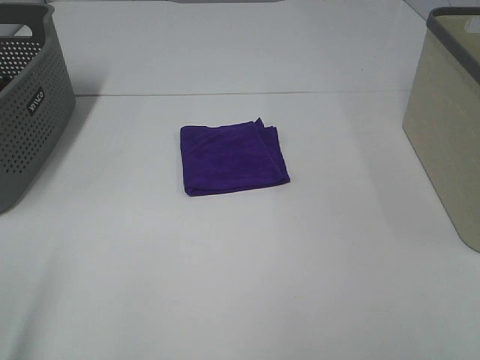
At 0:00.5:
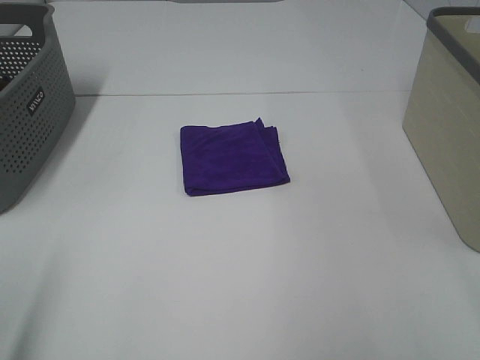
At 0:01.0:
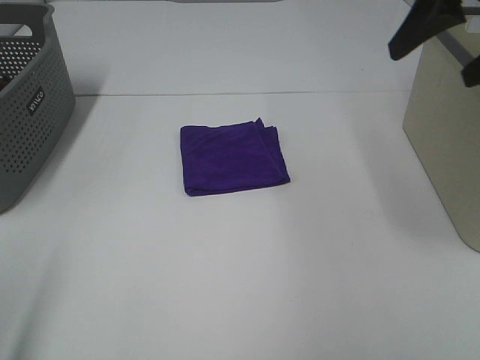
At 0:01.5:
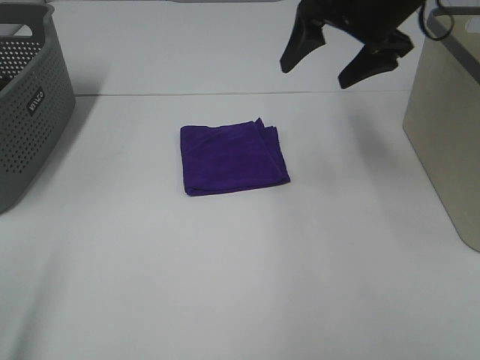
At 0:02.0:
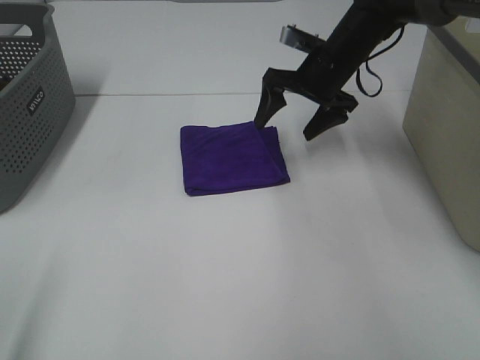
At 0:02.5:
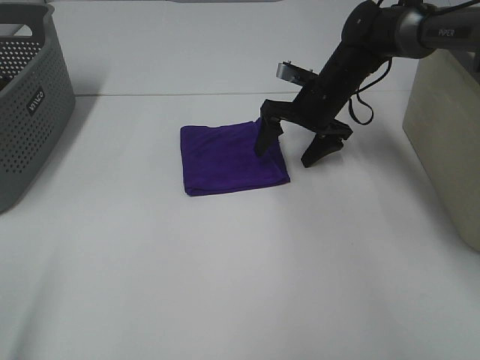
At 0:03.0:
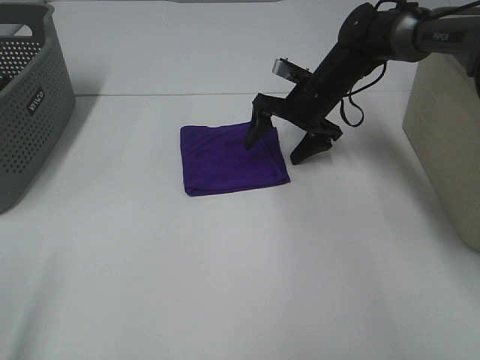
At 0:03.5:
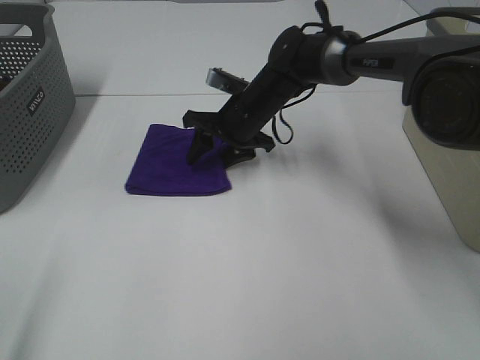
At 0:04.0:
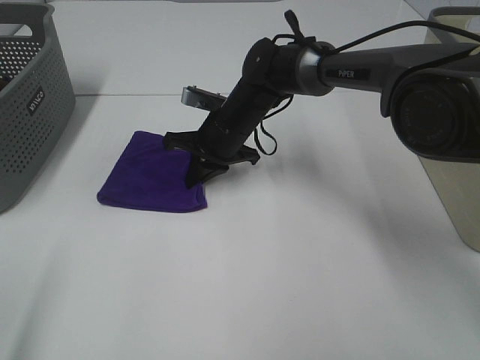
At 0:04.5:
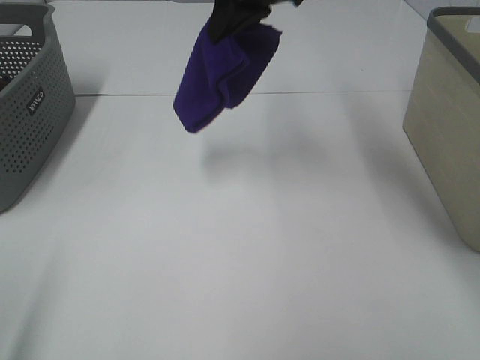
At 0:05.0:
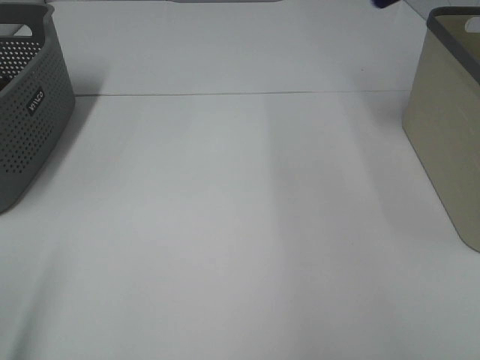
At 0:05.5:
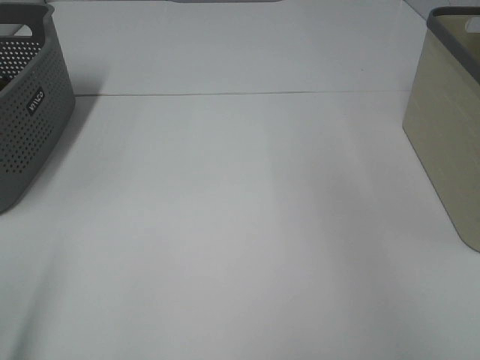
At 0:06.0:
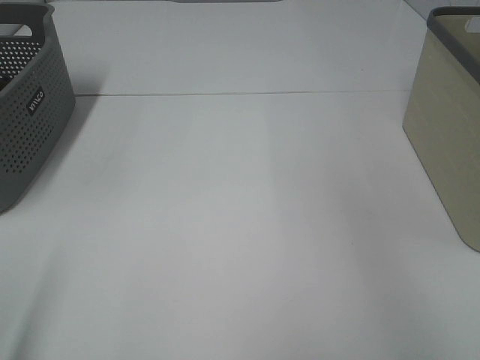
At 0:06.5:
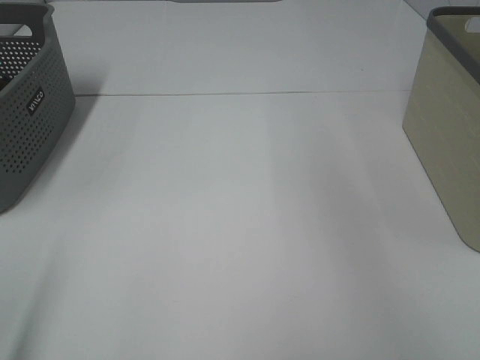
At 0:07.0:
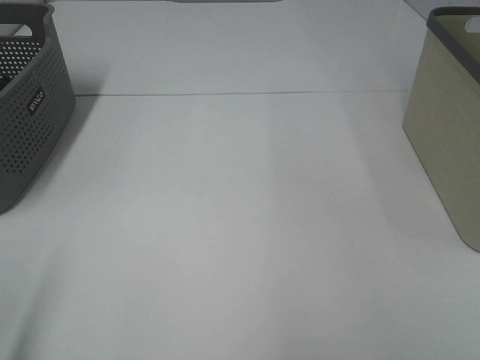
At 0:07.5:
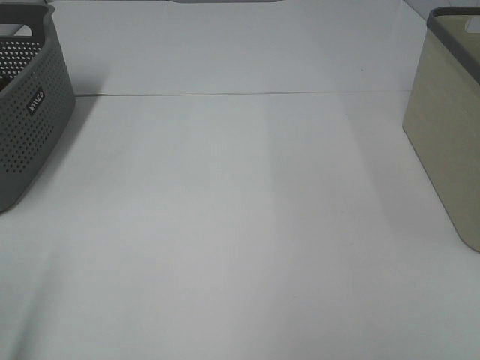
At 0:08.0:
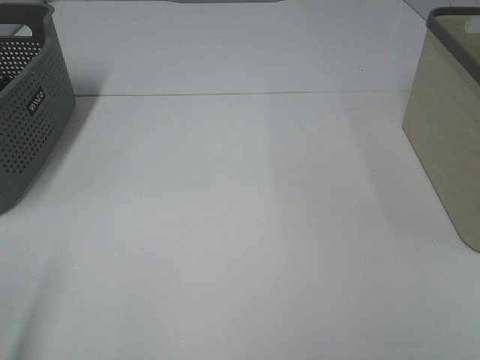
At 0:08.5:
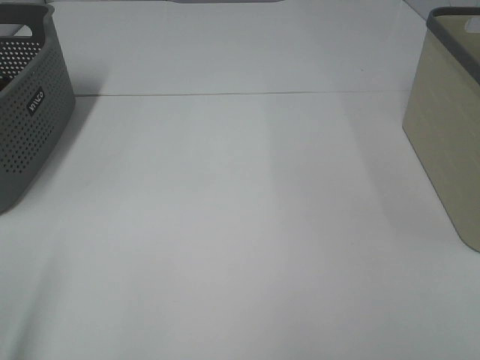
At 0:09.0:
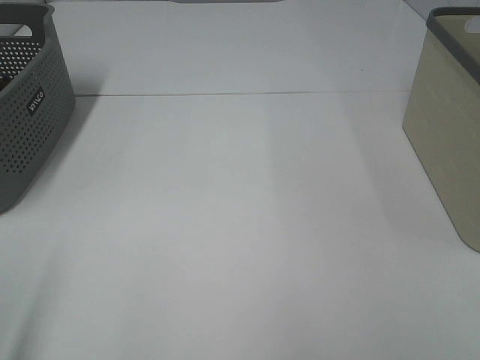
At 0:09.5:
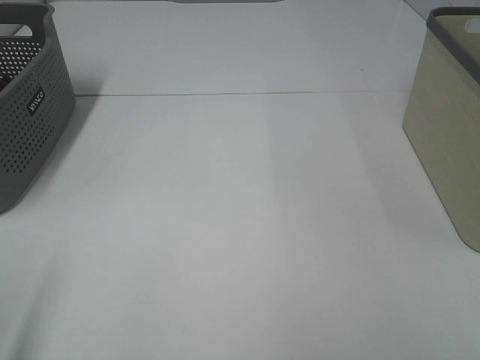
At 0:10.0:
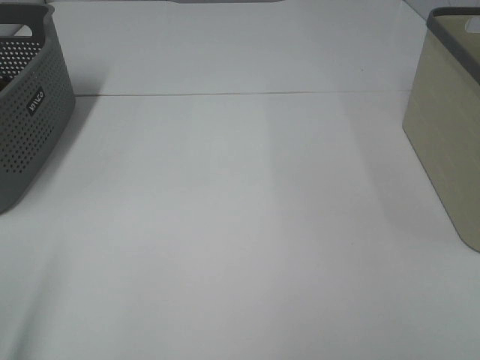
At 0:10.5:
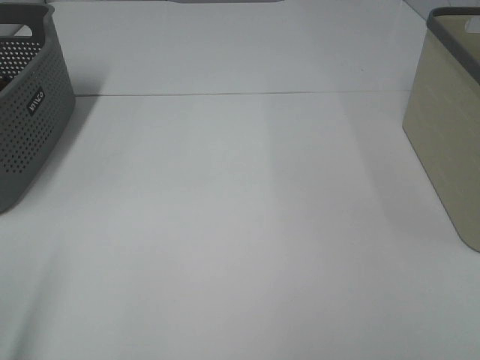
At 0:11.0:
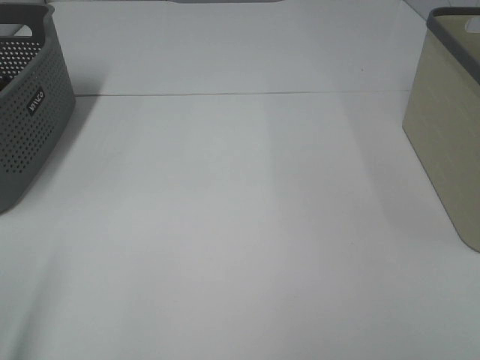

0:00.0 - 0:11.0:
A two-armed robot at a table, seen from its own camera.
Step, 0:00.0 - 0:03.5: Right hand: grab the folded purple towel.
Step, 0:04.0 - 0:06.0: Right hand: place the purple towel in right basket.
0:00.0 - 0:02.0: The right gripper shifts about 50 cm forward.
0:02.0 - 0:03.5: The right gripper is displaced to the left and downward by about 15 cm, and closes.
0:03.5 - 0:05.5: The right gripper goes roughly 50 cm upward and to the right, and closes up.

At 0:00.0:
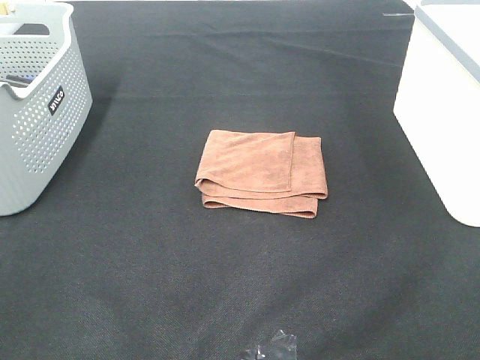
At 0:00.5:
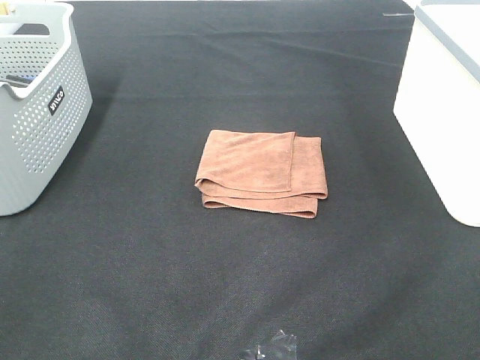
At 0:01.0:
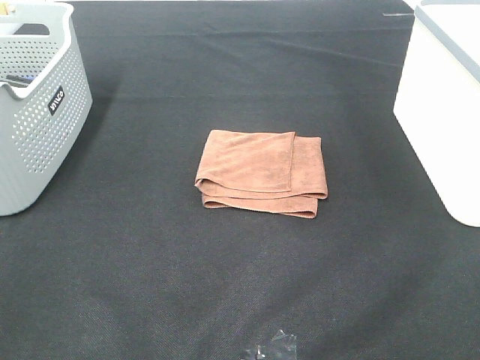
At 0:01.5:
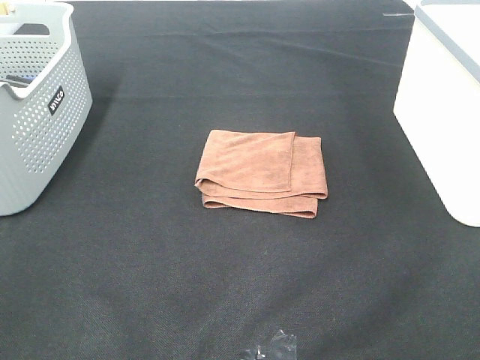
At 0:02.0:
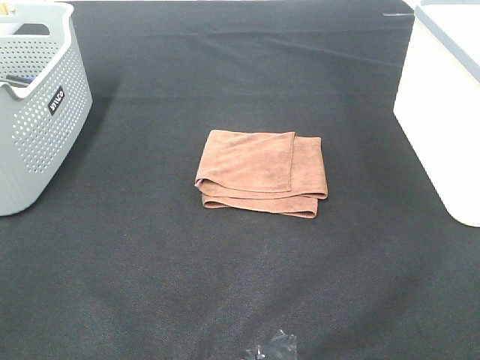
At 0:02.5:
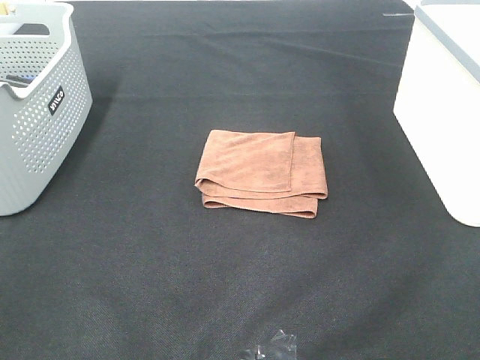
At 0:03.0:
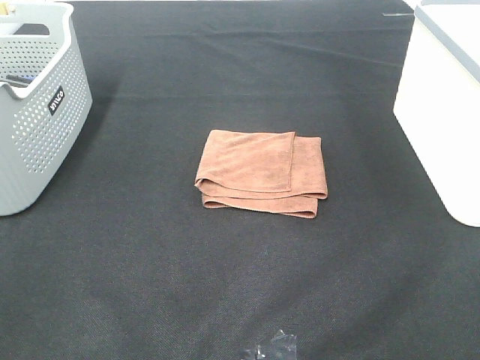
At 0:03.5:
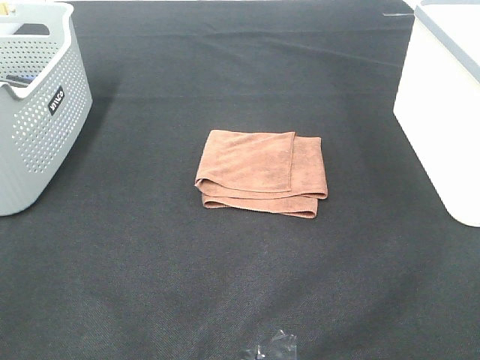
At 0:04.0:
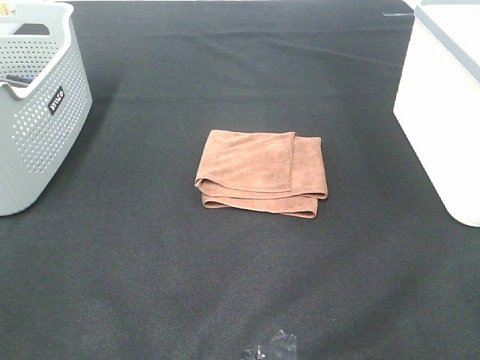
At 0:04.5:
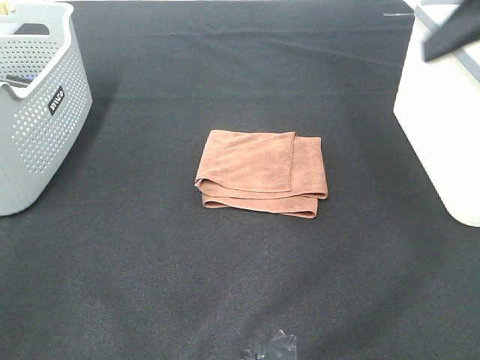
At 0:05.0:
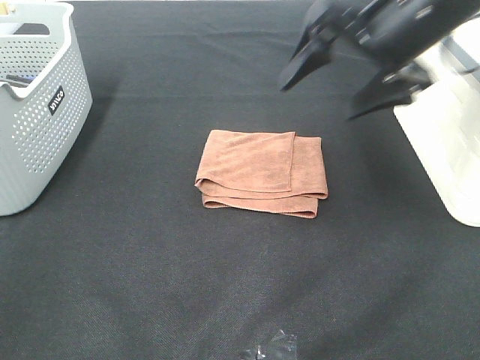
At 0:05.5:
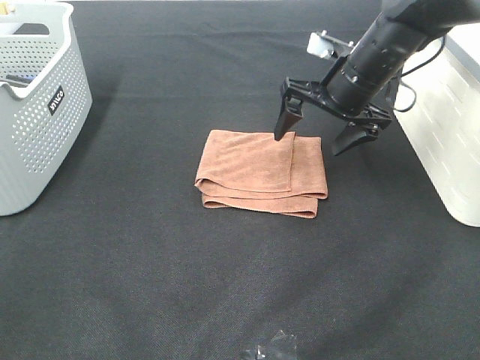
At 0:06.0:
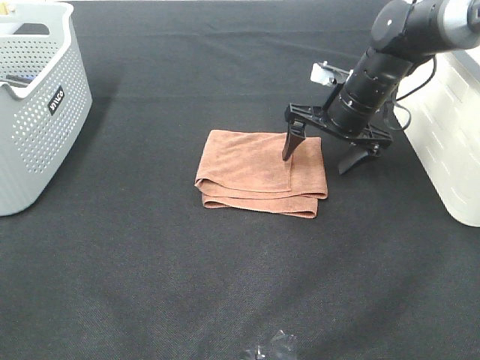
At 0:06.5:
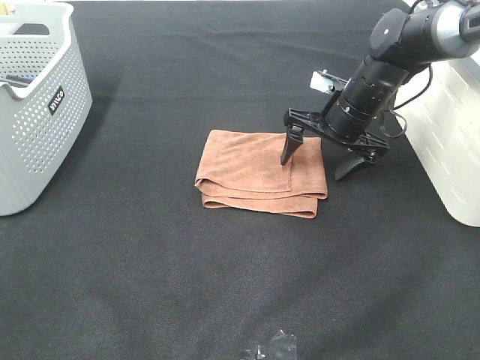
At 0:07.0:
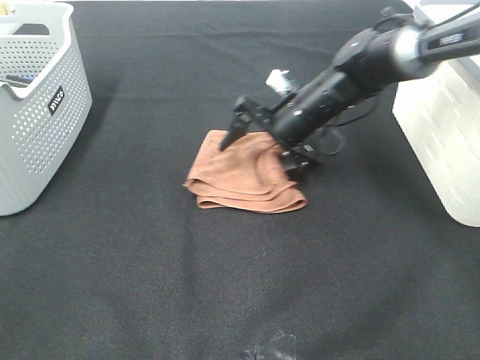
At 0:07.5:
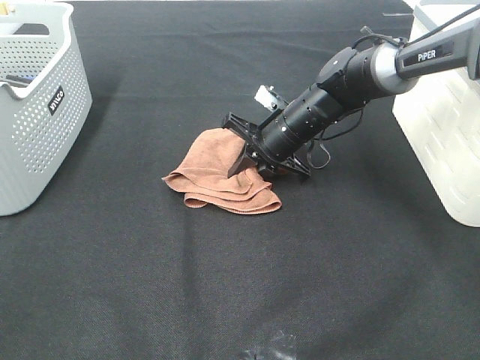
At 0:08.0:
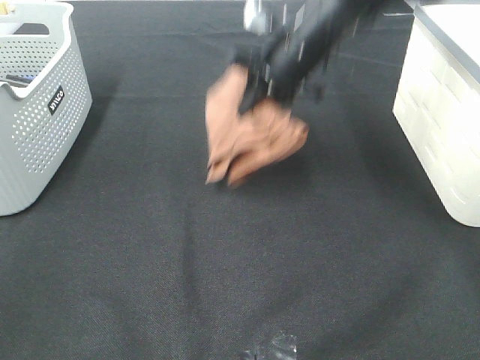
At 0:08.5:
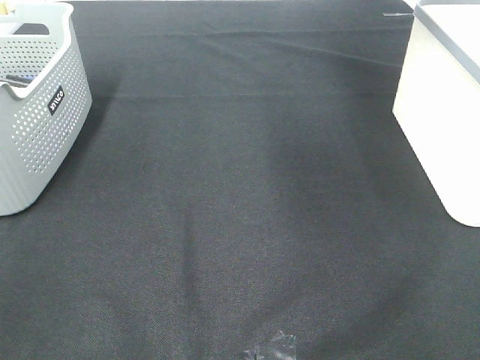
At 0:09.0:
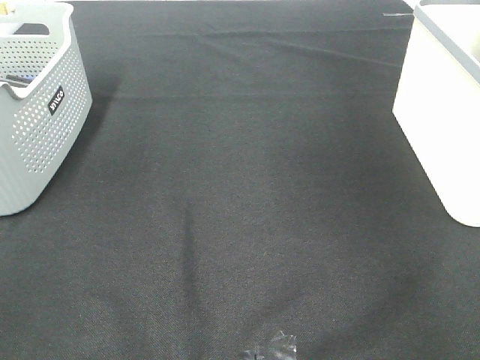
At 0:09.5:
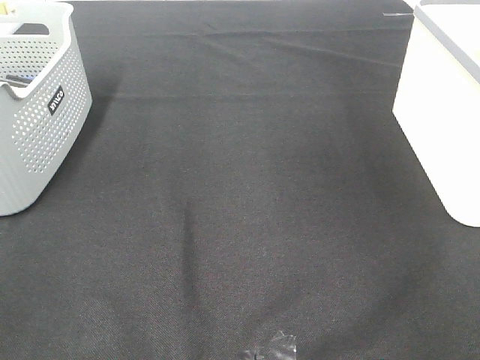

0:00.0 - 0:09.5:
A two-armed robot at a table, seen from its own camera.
Step, 0:00.0 - 0:07.5: Right hand: grab the folded brown towel.
0:00.0 - 0:02.0: The two grippers keep their place.
0:04.0 - 0:05.5: The right gripper is displaced forward and downward by about 35 cm.
0:05.5 - 0:07.5: The right gripper goes approximately 10 cm downward and to the left, and closes up.
0:07.5 - 0:09.5: The right gripper shifts approximately 40 cm to the right and upward, and opens.

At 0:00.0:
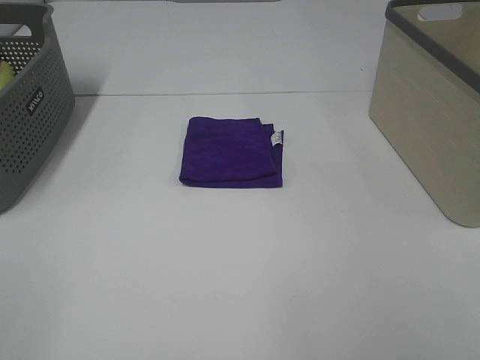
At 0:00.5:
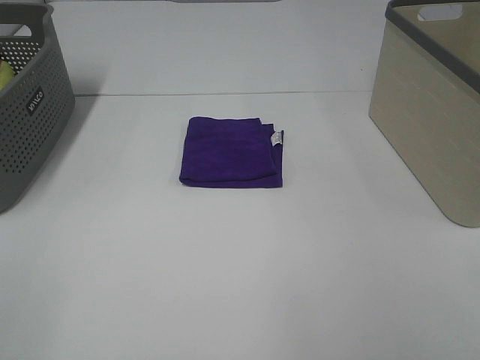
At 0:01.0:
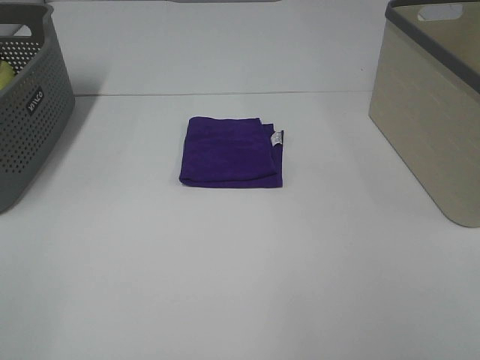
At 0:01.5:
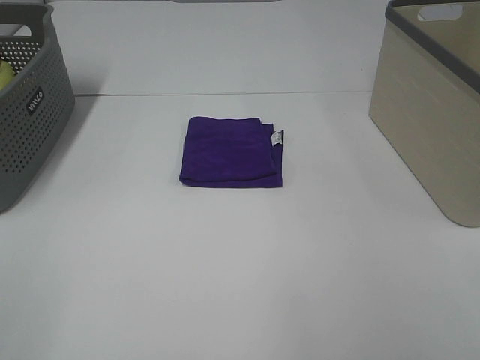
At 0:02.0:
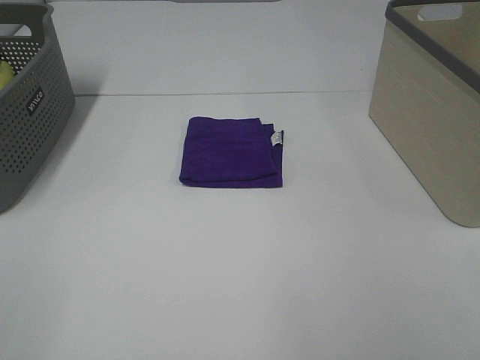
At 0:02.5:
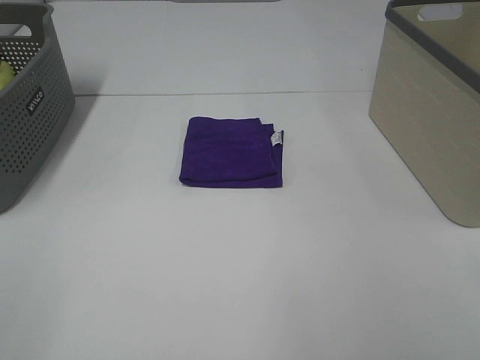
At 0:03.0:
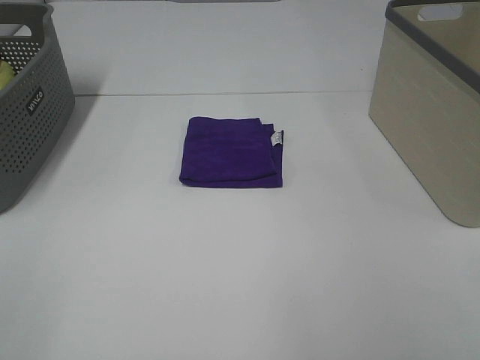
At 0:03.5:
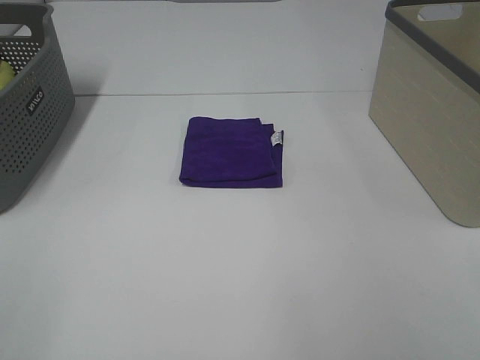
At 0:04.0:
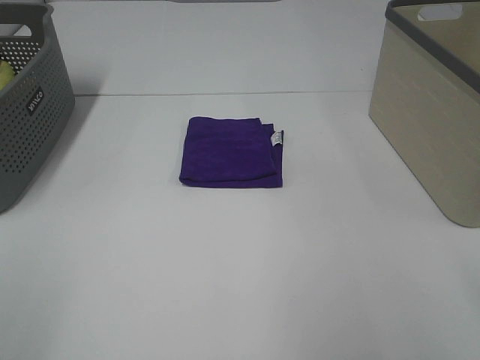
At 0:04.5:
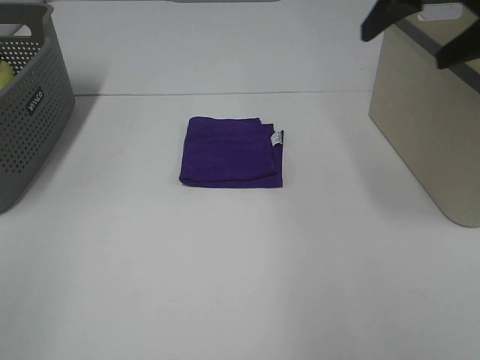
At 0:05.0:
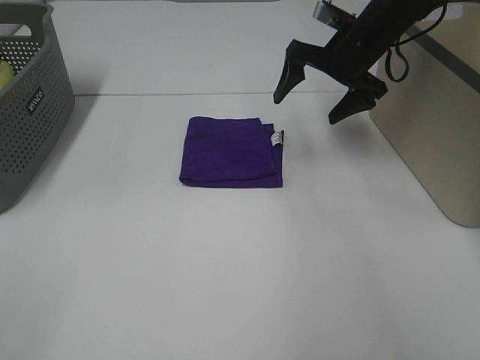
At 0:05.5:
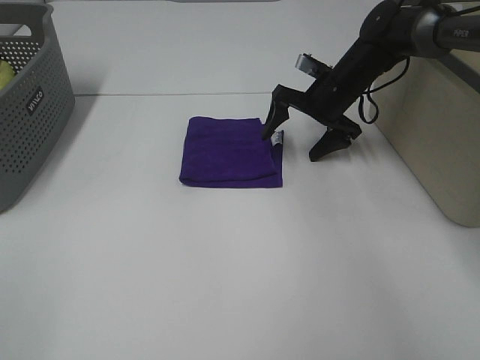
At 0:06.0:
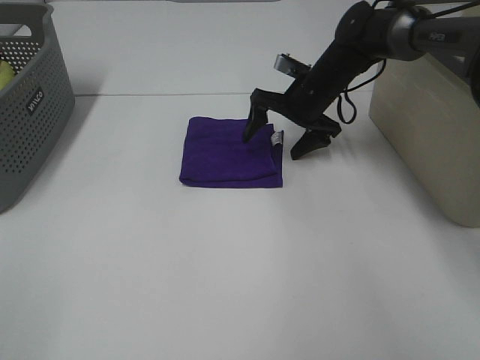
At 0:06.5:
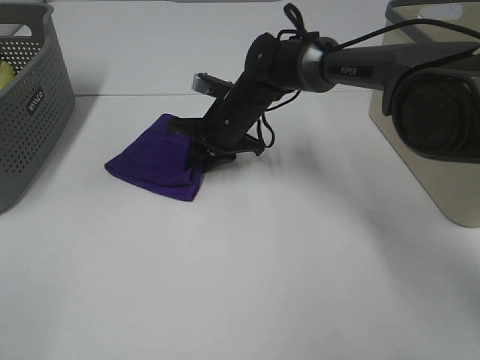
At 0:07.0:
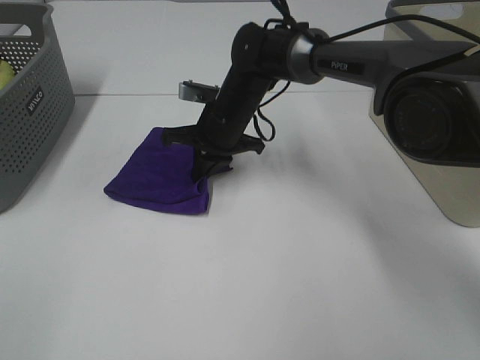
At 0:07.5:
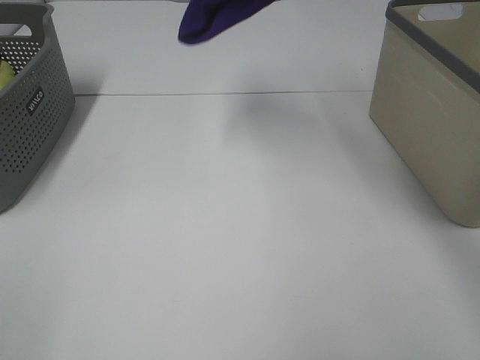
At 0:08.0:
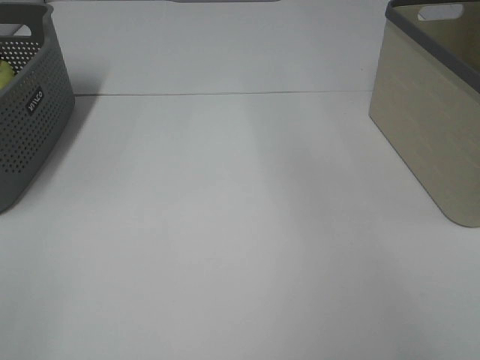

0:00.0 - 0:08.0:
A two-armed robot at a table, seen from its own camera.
Step, 0:00.0 - 0:06.5: Right hand: grab the folded purple towel.
0:00.0 - 0:02.0: Both grippers stay put.
0:04.0 - 0:06.0: The right gripper moves forward and downward, some 50 cm.
0:06.0 - 0:08.0: The right gripper travels upward and to the right by roughly 40 cm, and closes.
